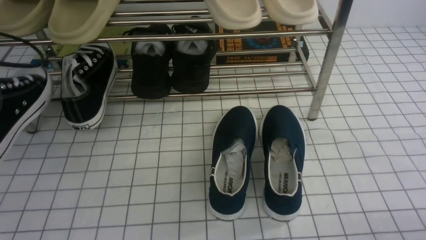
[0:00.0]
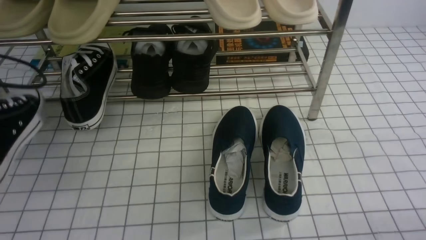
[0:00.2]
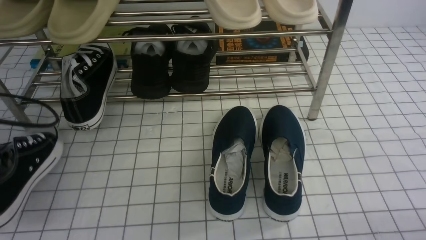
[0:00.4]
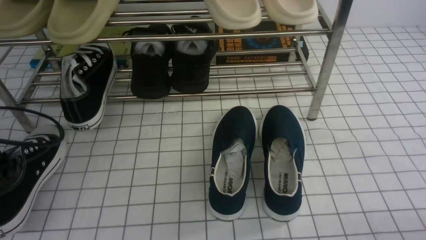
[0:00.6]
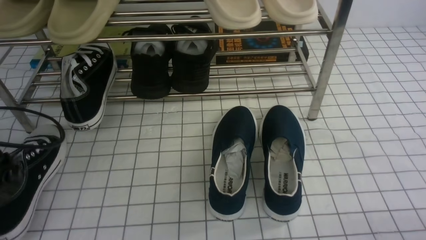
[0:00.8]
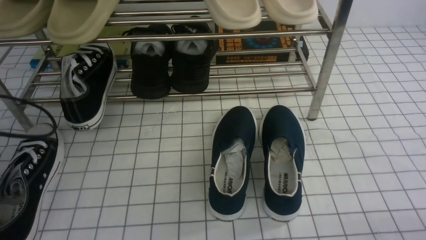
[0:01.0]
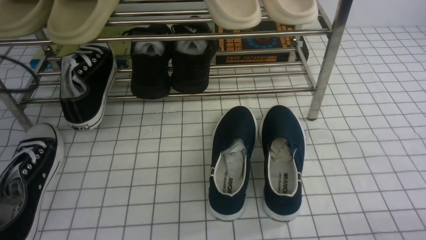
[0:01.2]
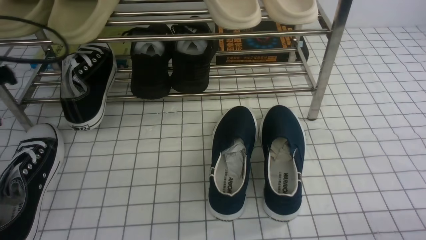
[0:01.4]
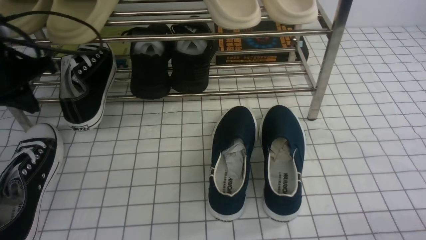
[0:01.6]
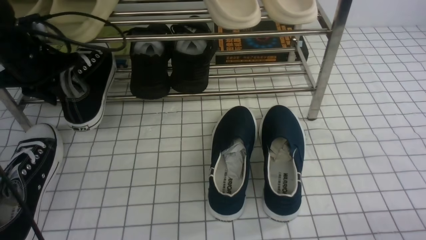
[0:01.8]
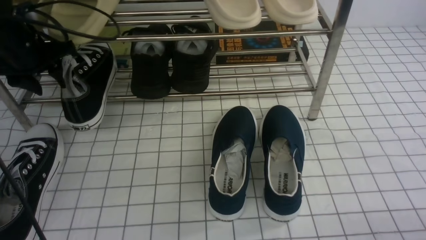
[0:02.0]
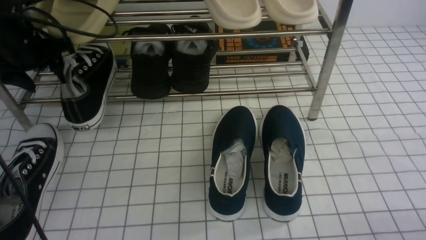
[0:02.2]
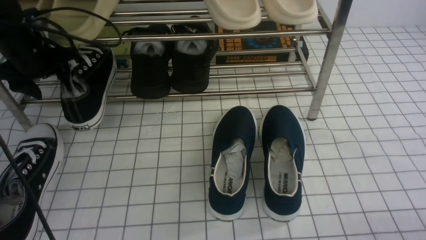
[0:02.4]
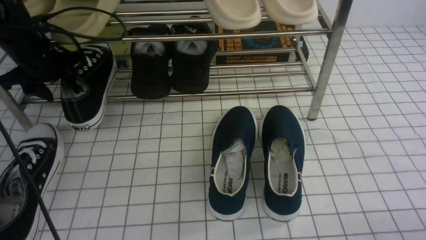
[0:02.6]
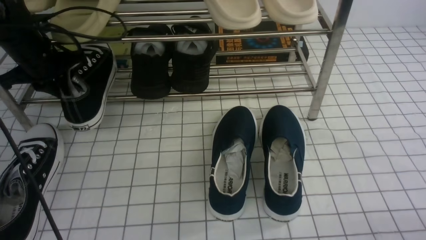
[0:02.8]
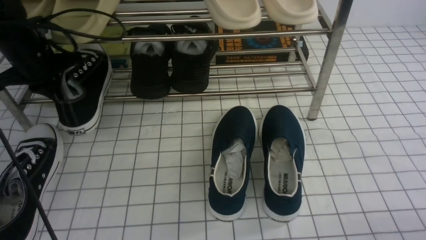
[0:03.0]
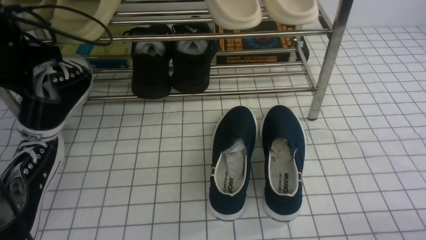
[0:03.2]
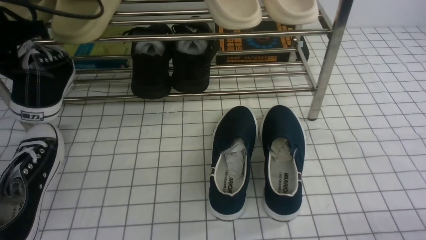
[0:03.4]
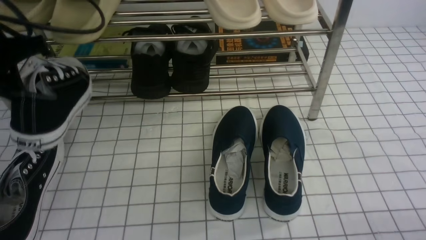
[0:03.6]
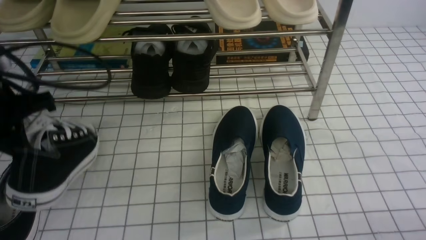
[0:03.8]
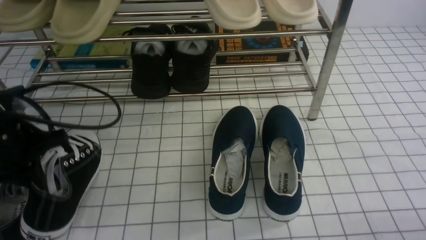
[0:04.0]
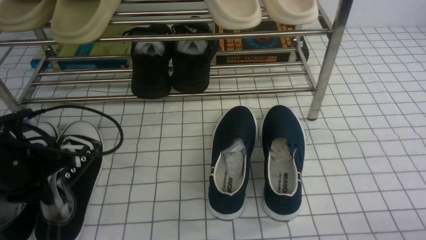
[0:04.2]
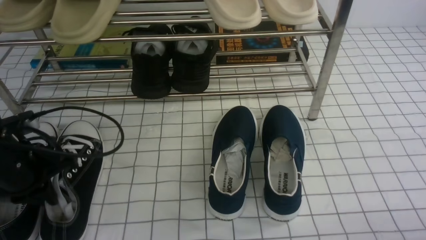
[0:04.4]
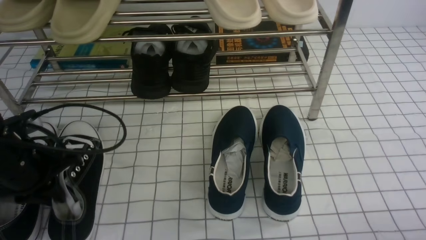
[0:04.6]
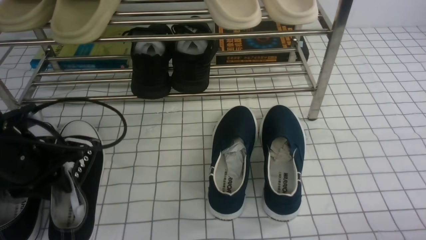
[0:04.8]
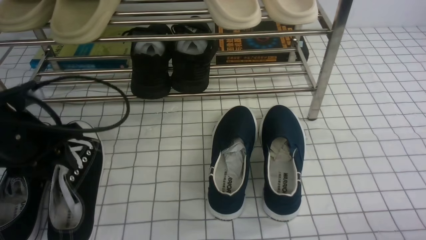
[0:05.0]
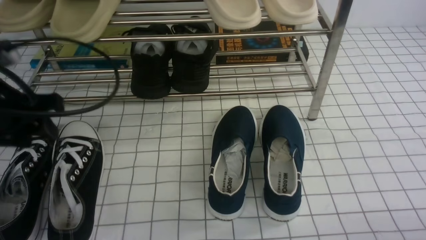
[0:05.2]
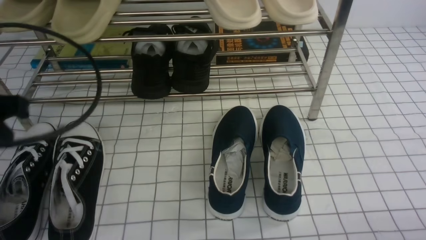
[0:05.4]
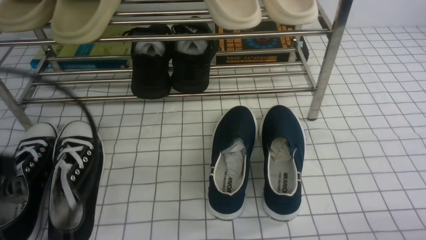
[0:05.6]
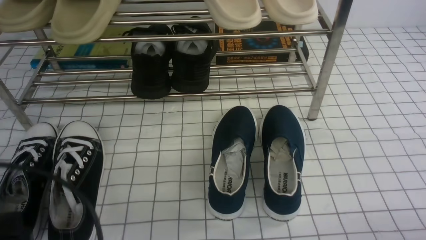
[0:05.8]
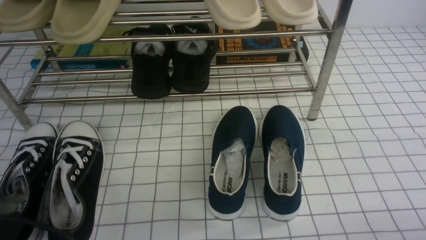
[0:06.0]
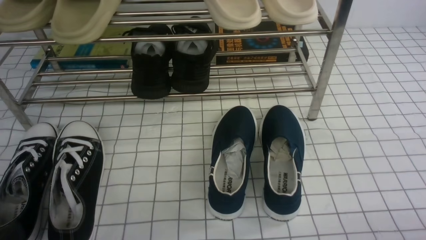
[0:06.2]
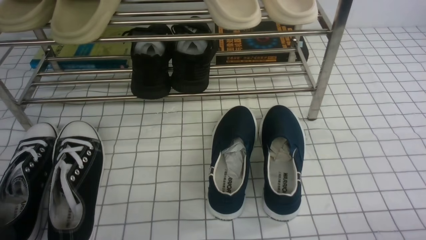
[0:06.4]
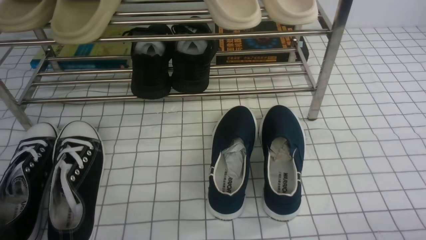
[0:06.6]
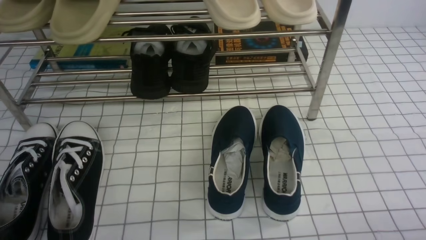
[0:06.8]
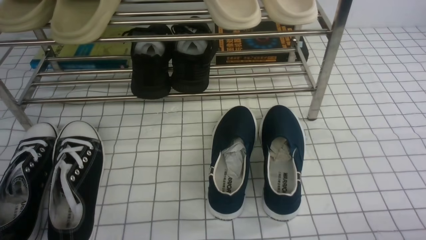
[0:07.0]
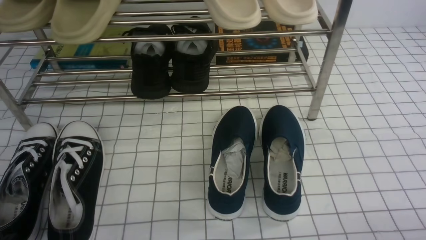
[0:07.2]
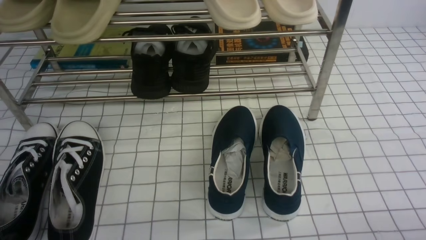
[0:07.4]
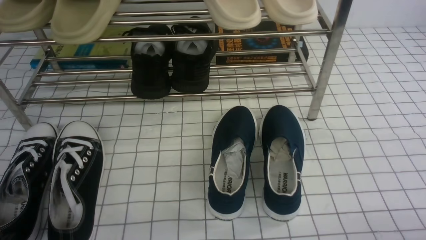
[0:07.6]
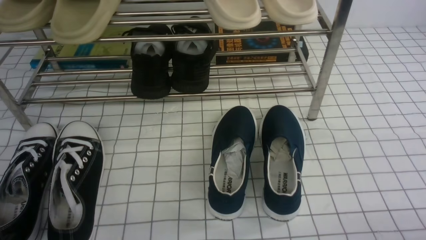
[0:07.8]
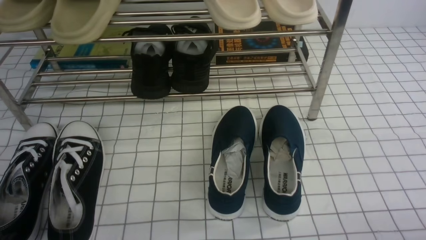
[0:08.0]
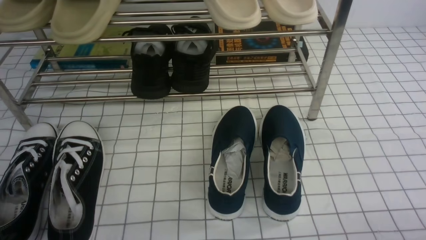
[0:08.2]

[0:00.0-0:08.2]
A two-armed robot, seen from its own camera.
Step, 0:00.0 to 0:01.0: Use your left arm to remove the clamped shoe from the shoe rack and put it down.
Step, 0:01.2 to 0:02.8: use the left arm to clamp a shoe on the left side of the shoe rack.
Step, 0:03.0 to 0:05.2: Use your left arm to remove the clamped shoe from the shoe rack and put it down.
0:00.0 to 0:01.6: The left gripper is displaced forward and to the right by some 10 cm, and opens, then closes again.
0:01.6 to 0:03.2: The left gripper opens and closes again.
0:03.2 to 0:05.0: The left gripper is displaced backward and downward by some 15 cm, and opens up.
0:05.0 to 0:06.6: The left gripper moves backward, approximately 20 cm, and closes up.
